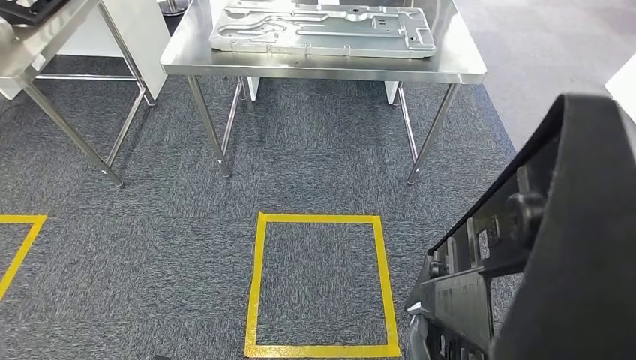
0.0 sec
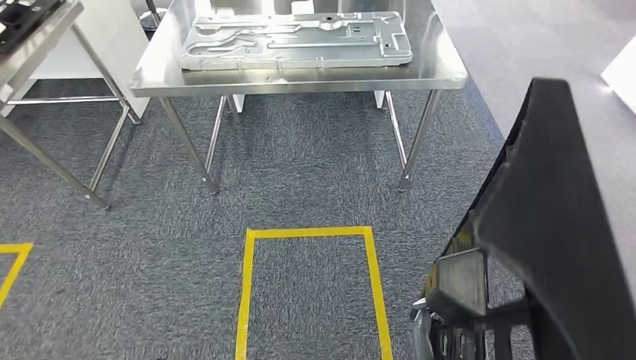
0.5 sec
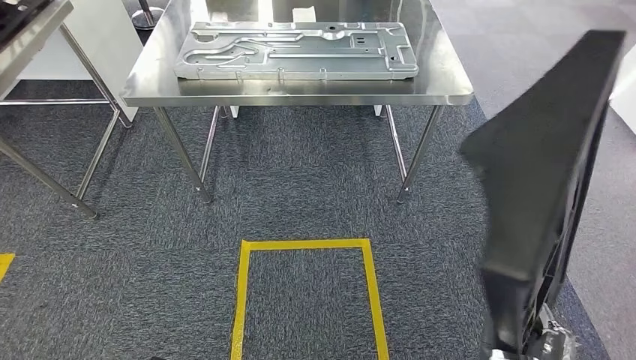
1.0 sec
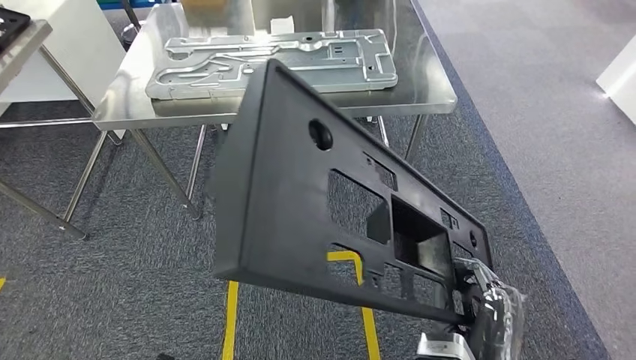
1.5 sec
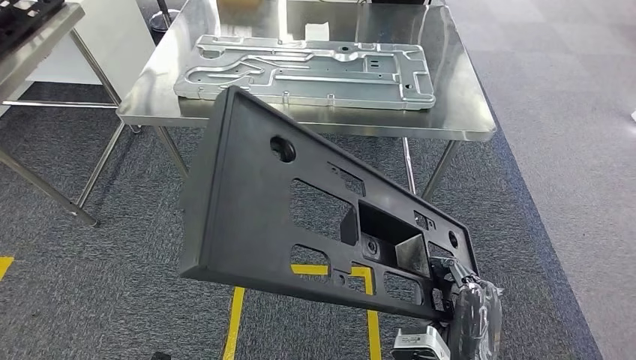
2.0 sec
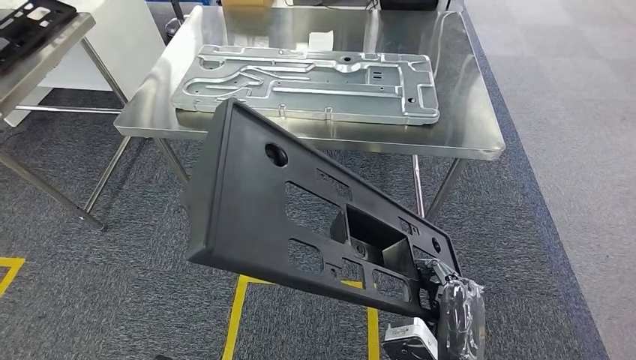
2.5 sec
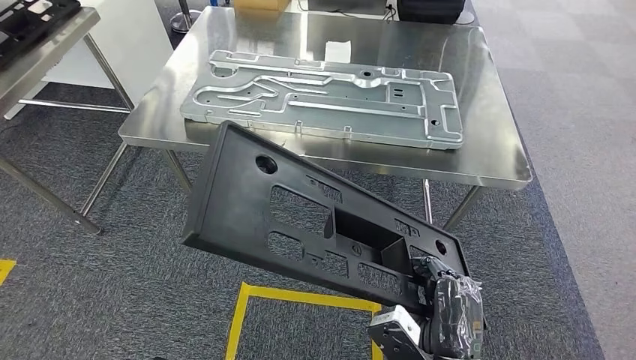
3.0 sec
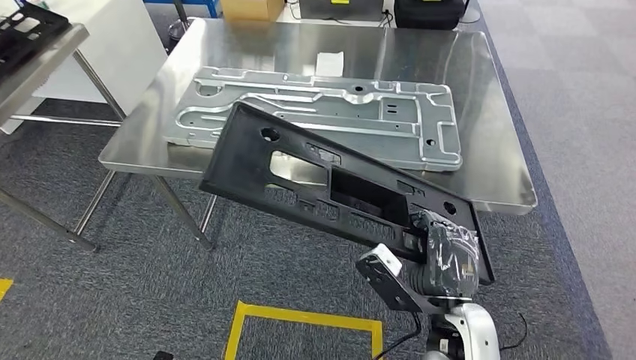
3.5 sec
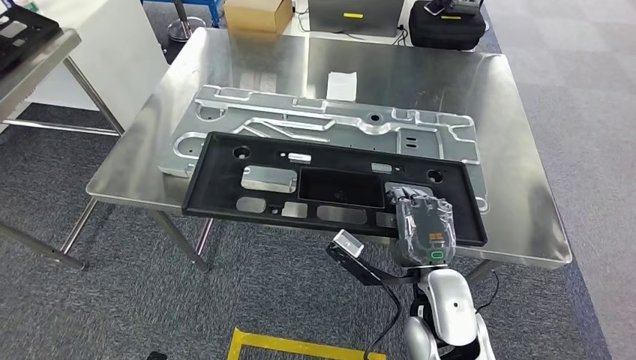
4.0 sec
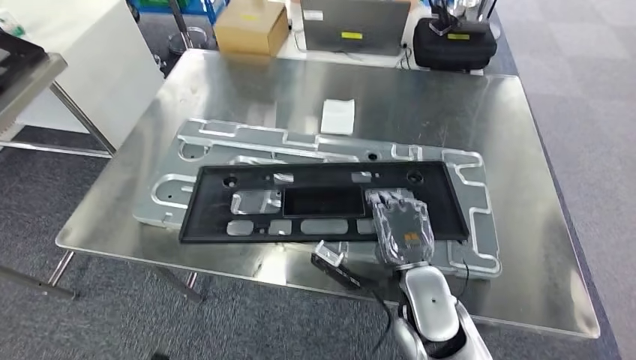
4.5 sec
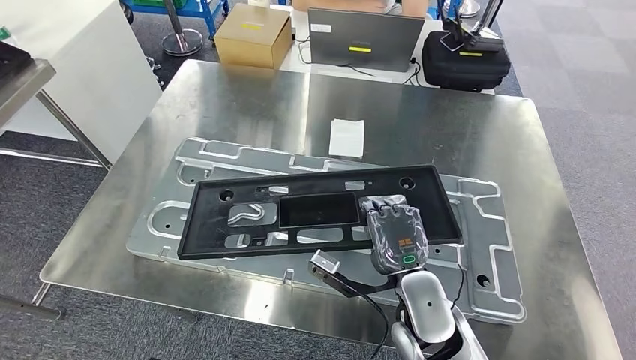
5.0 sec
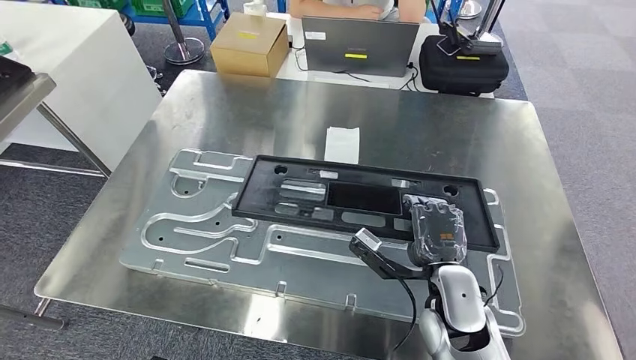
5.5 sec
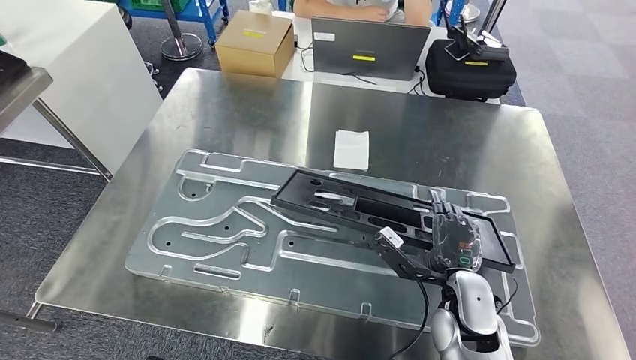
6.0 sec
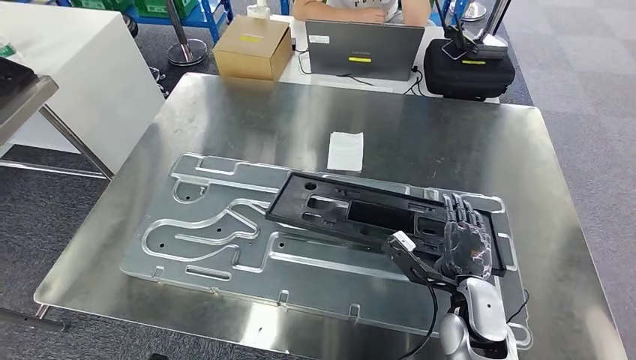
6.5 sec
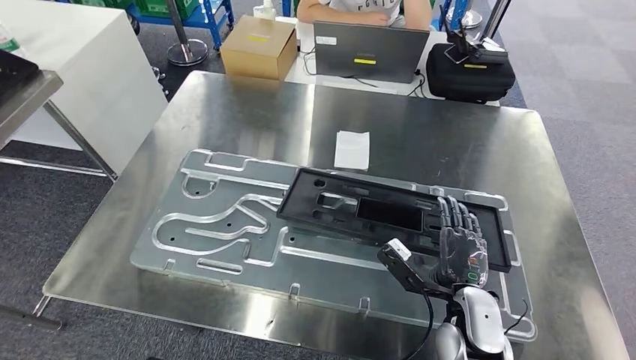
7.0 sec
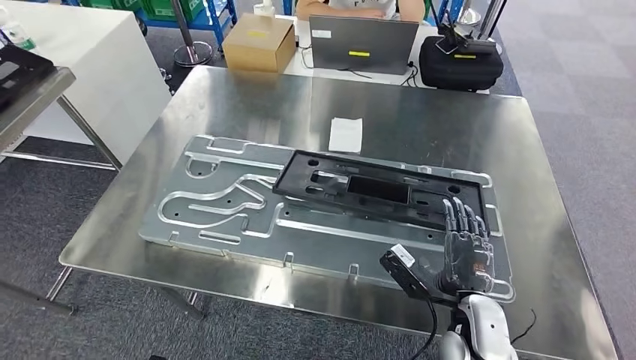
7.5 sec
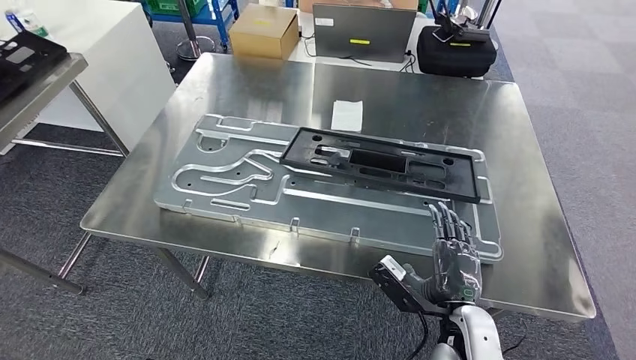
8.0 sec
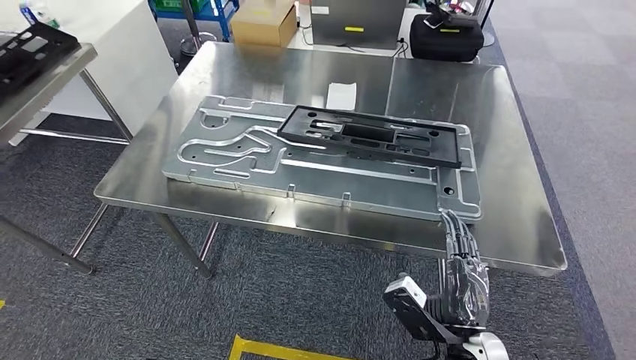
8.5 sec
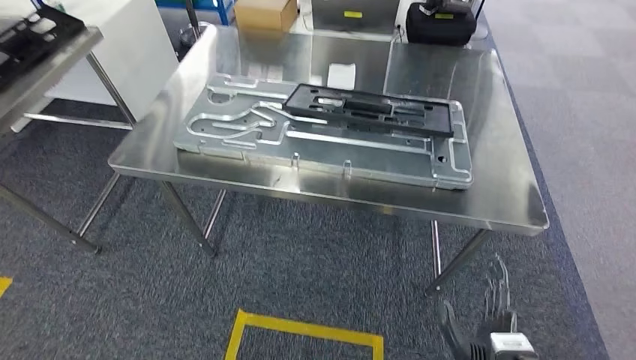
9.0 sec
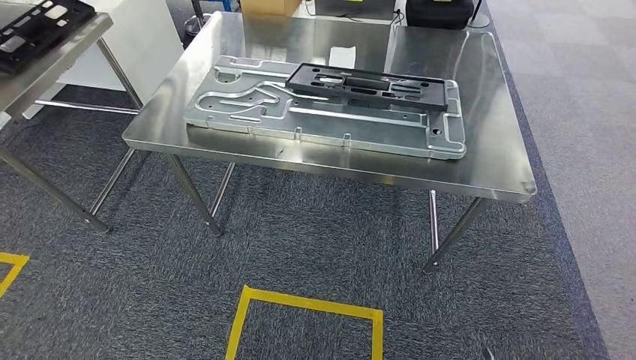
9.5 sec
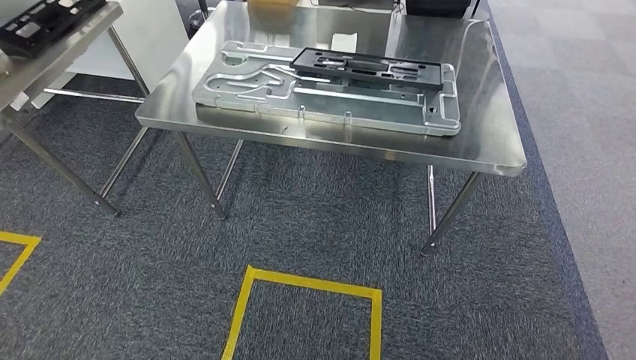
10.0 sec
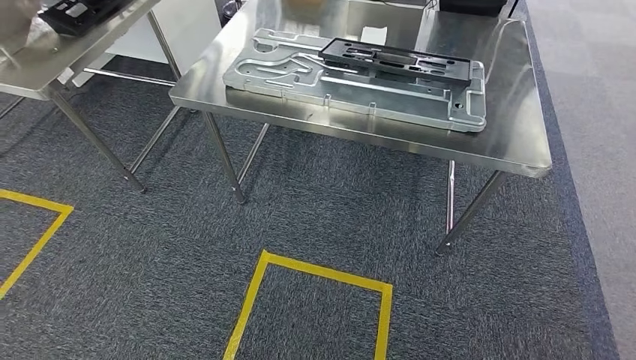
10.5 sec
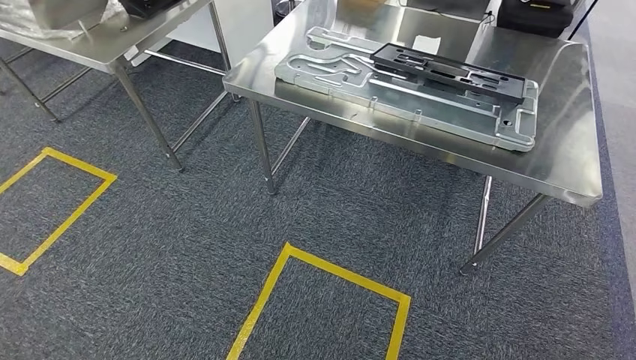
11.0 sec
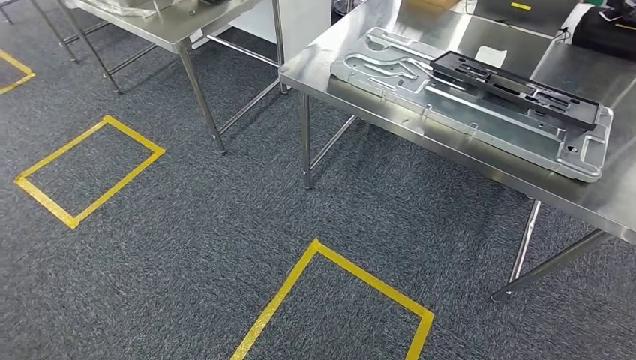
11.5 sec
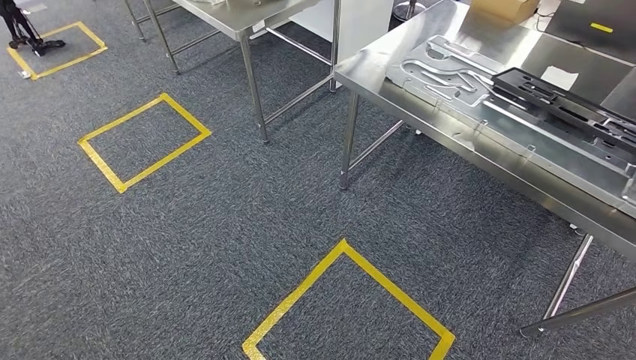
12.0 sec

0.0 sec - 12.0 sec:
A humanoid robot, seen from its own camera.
Step, 0.0 sec - 2.5 sec: Move the large material to the workbench.
Step, 3.5 sec - 9.5 sec: Insert the large material into the corresponding slot on the workbench.

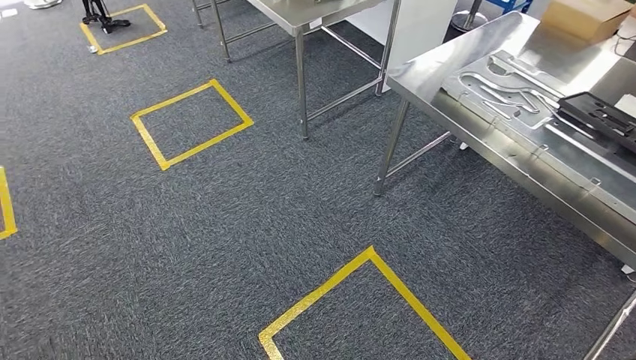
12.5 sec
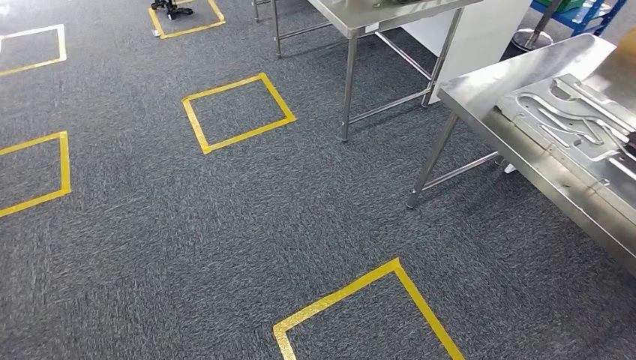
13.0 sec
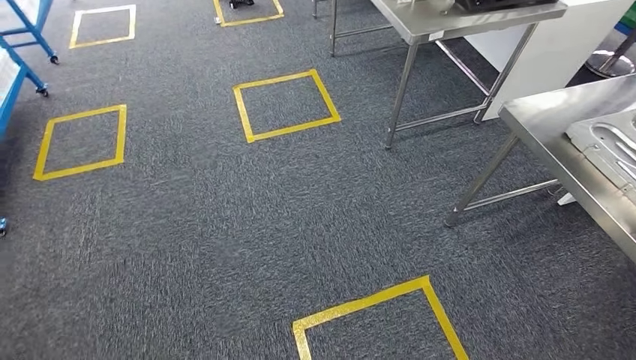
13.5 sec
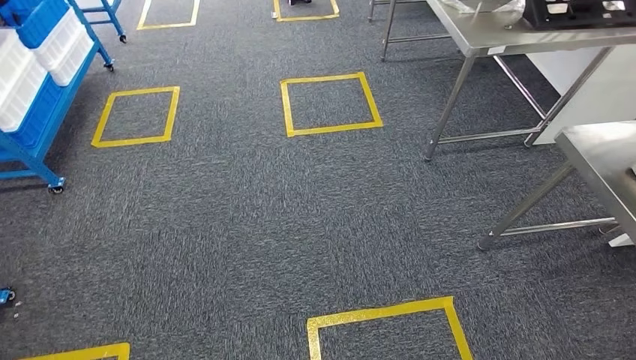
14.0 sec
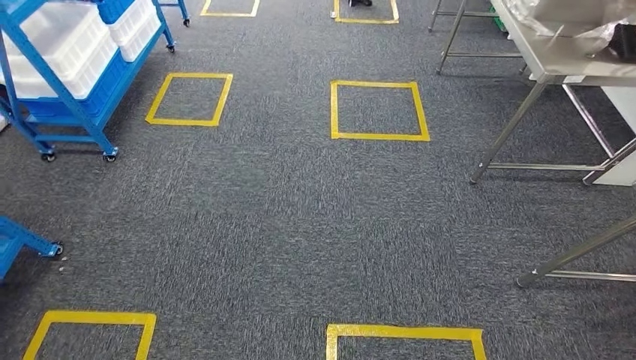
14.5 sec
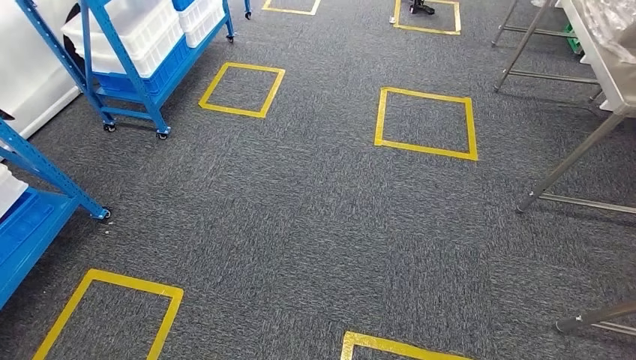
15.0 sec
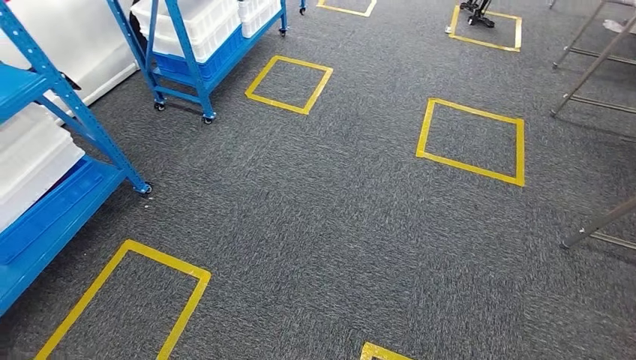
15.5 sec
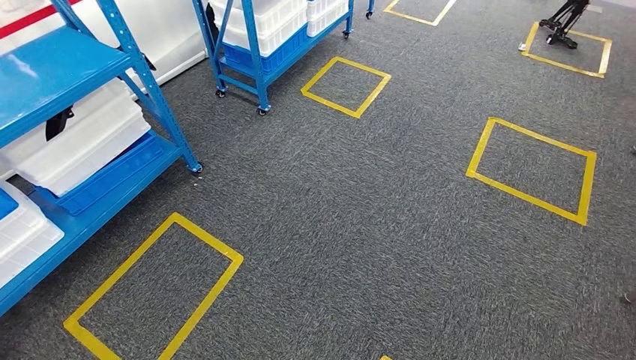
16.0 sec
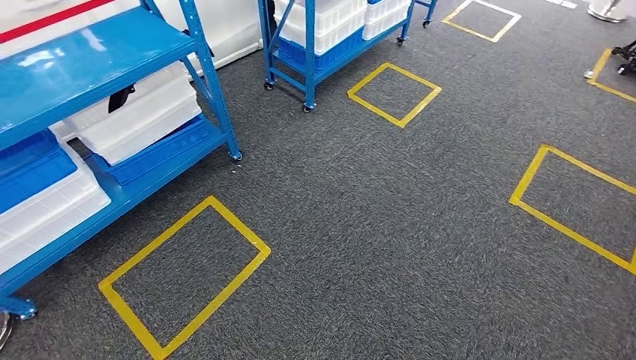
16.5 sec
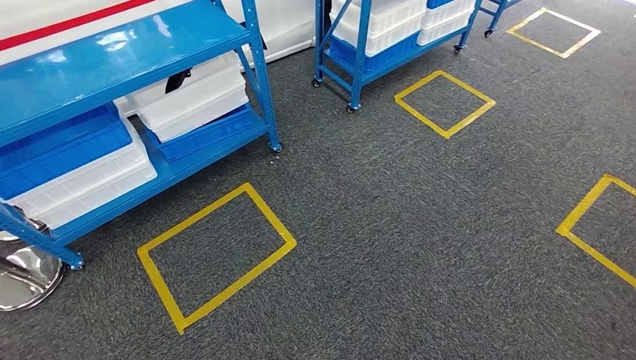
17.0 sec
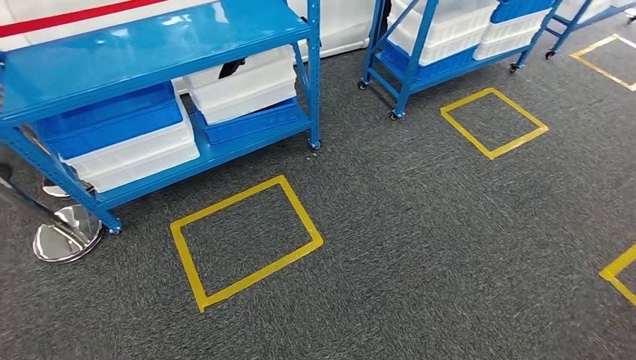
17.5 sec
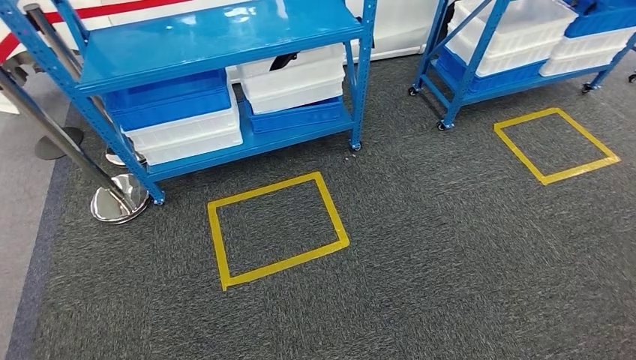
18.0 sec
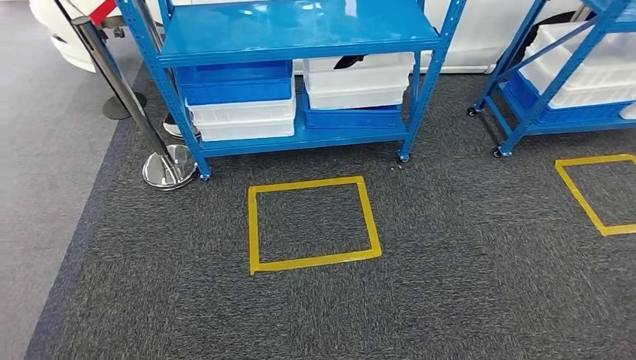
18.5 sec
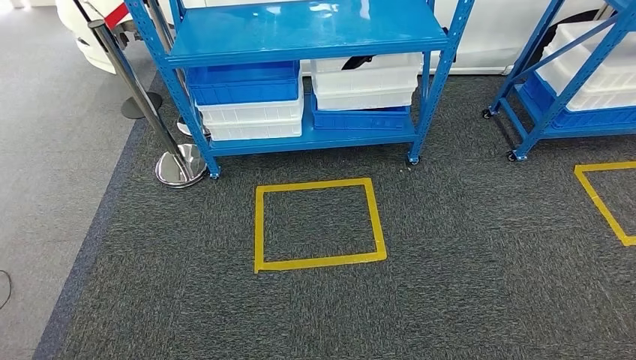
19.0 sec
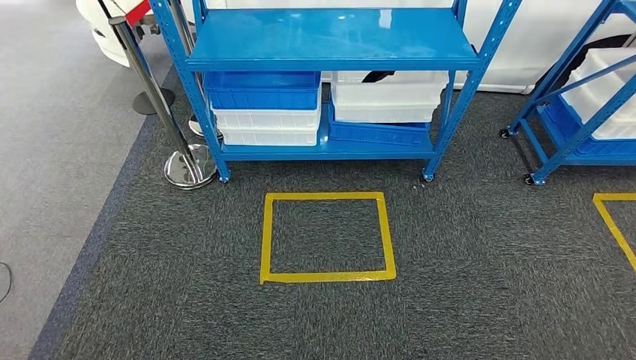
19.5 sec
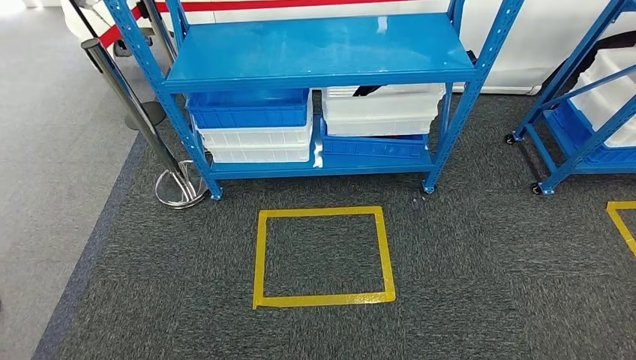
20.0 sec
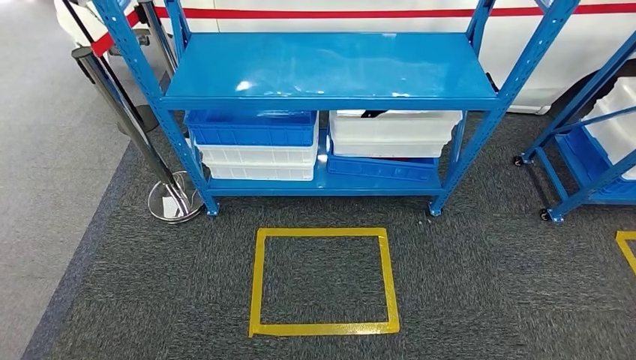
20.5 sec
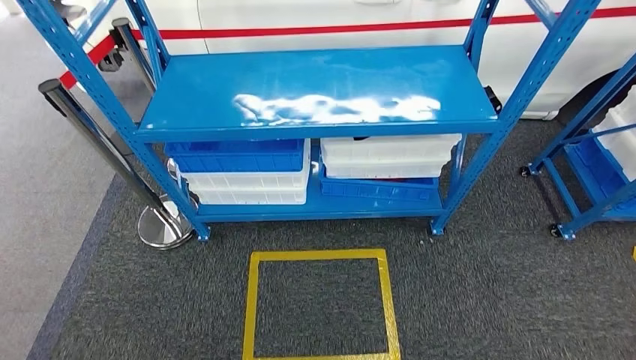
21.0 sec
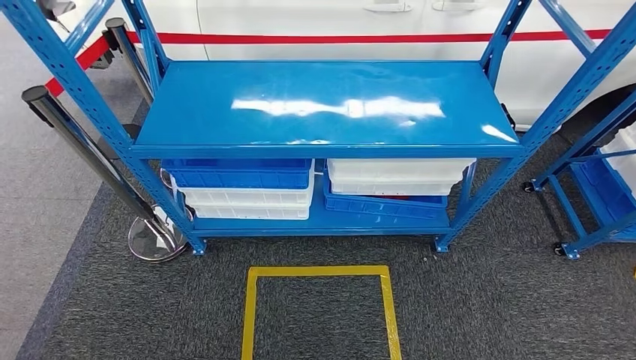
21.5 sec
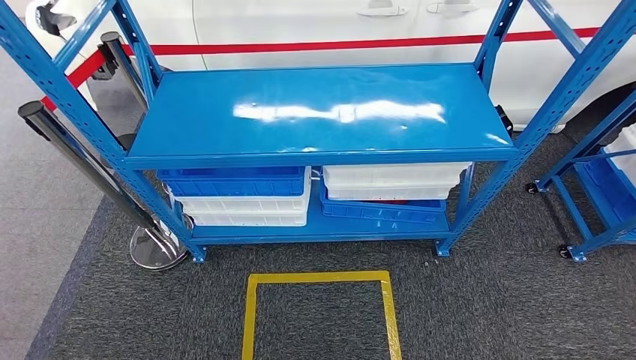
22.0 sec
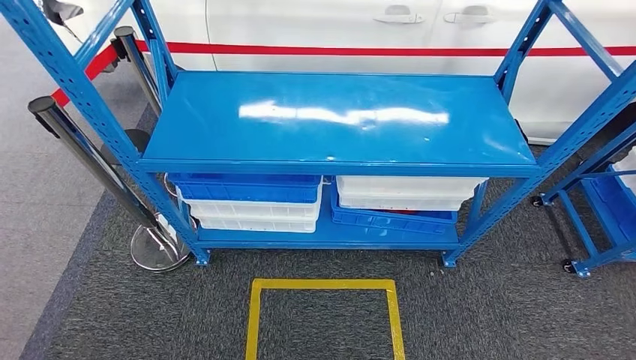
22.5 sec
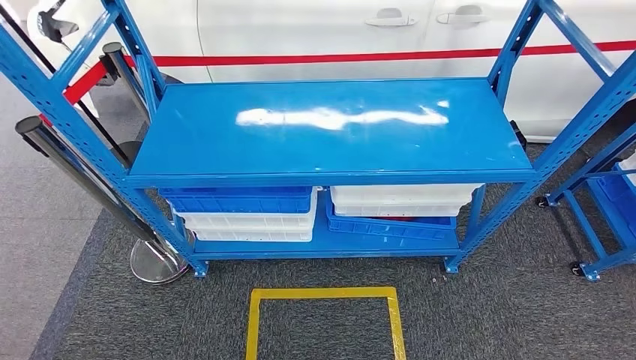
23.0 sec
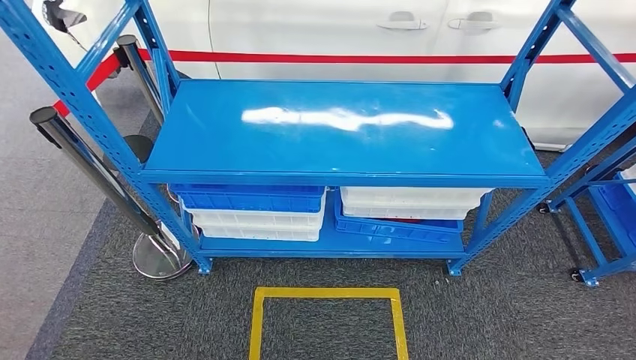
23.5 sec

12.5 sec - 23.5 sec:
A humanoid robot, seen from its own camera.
Step, 12.5 sec - 23.5 sec: Return to the initial position at the shelf.
